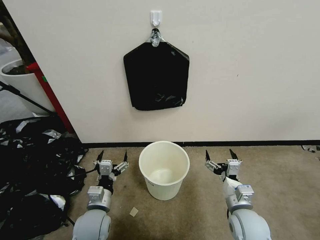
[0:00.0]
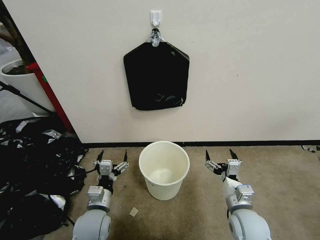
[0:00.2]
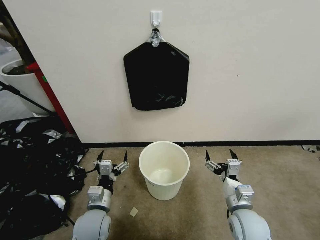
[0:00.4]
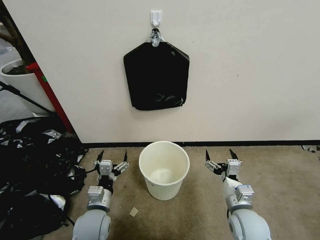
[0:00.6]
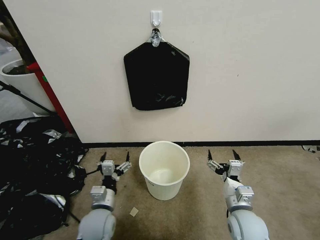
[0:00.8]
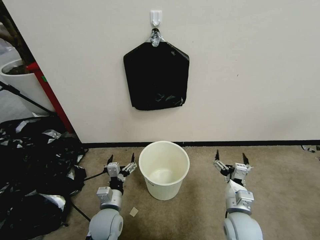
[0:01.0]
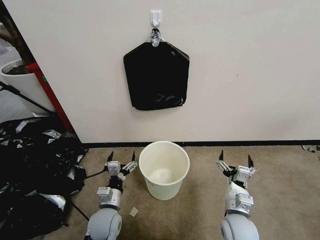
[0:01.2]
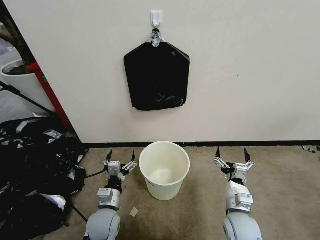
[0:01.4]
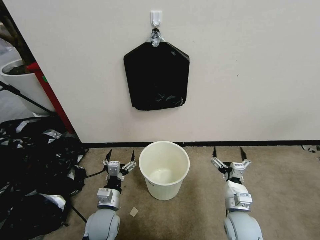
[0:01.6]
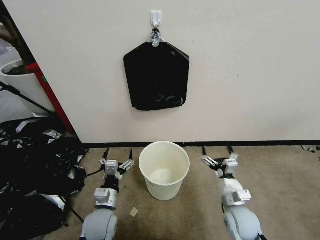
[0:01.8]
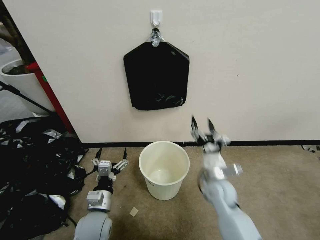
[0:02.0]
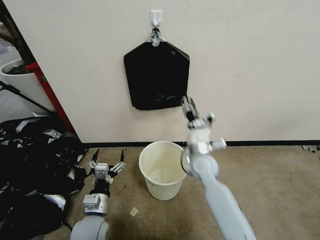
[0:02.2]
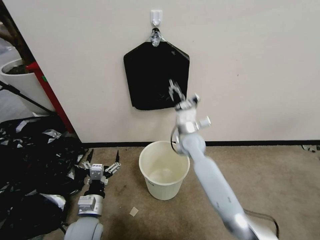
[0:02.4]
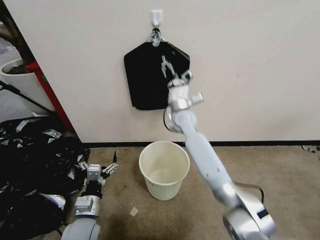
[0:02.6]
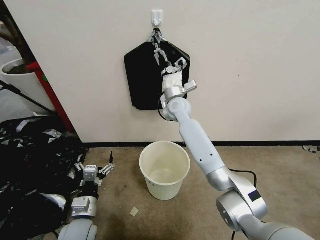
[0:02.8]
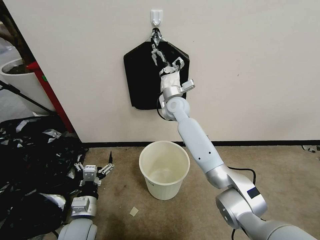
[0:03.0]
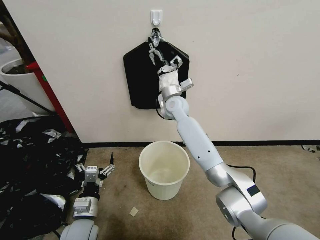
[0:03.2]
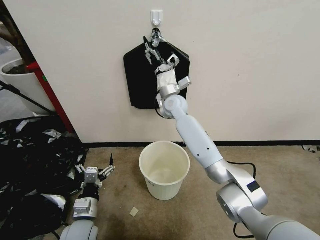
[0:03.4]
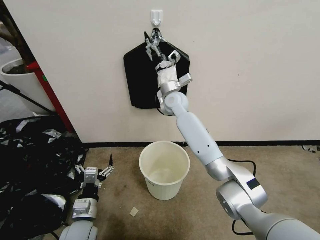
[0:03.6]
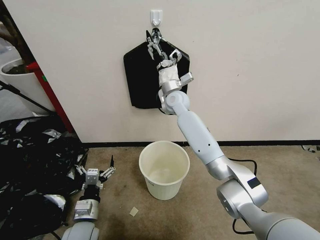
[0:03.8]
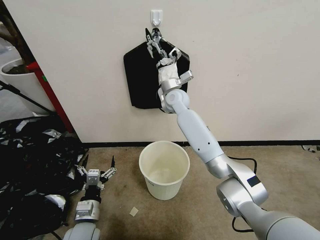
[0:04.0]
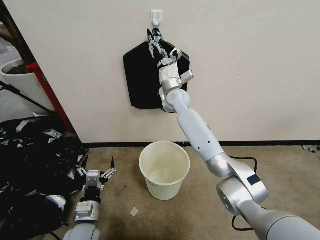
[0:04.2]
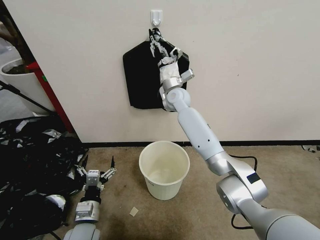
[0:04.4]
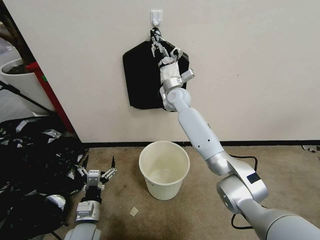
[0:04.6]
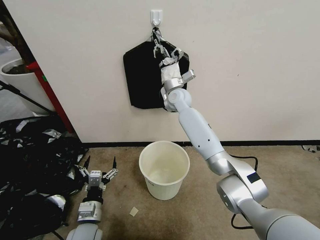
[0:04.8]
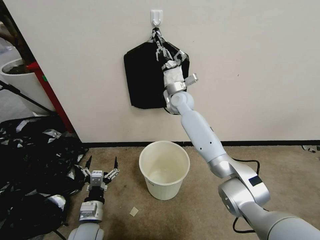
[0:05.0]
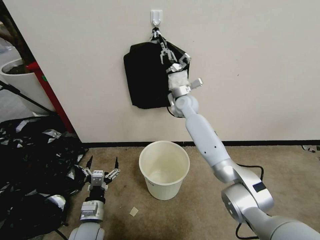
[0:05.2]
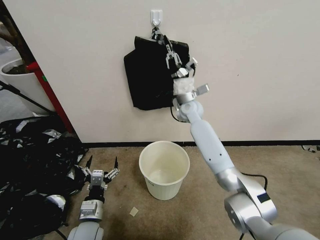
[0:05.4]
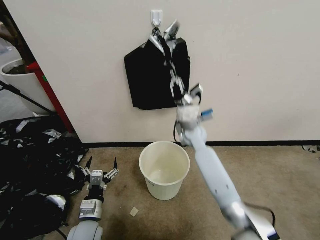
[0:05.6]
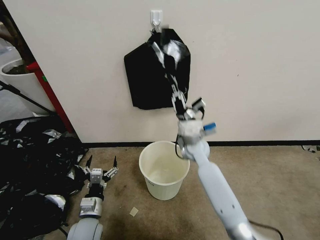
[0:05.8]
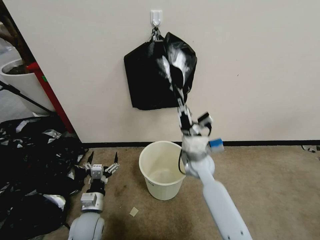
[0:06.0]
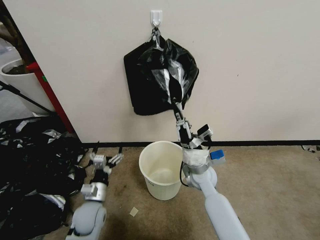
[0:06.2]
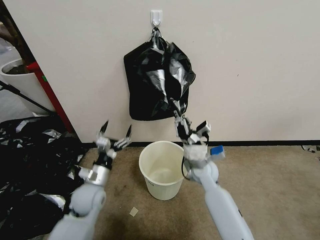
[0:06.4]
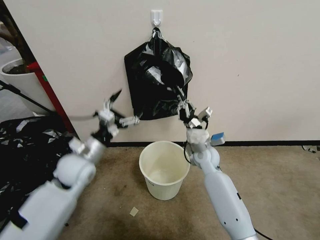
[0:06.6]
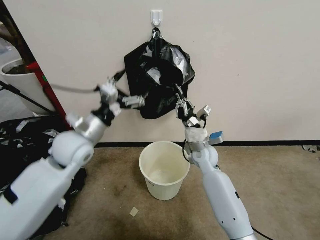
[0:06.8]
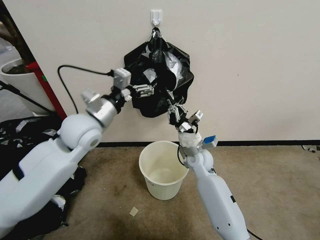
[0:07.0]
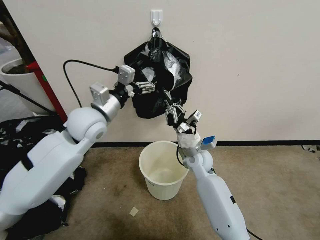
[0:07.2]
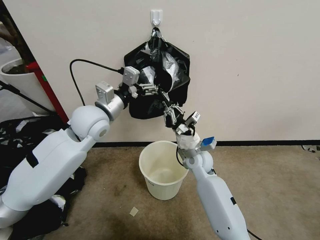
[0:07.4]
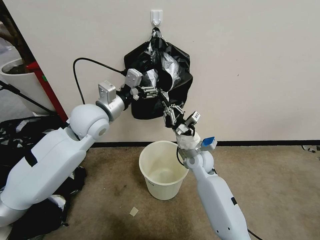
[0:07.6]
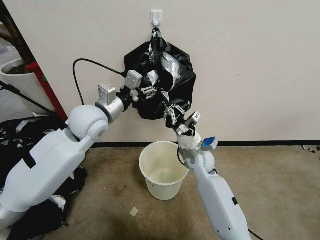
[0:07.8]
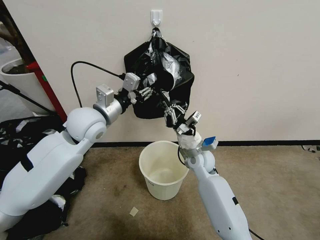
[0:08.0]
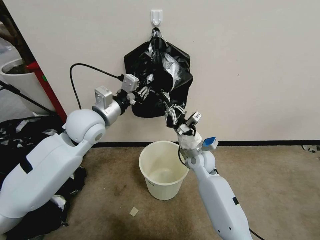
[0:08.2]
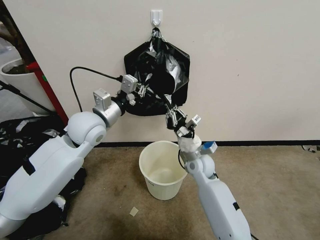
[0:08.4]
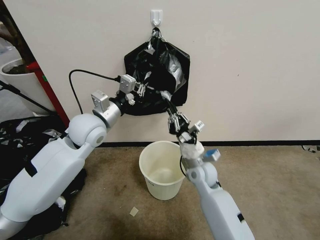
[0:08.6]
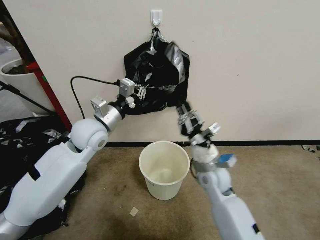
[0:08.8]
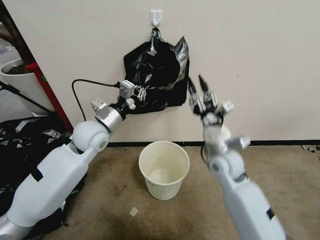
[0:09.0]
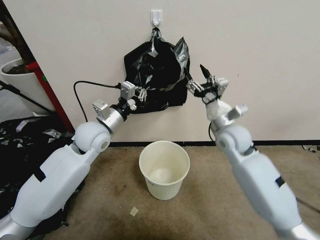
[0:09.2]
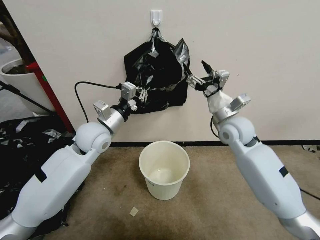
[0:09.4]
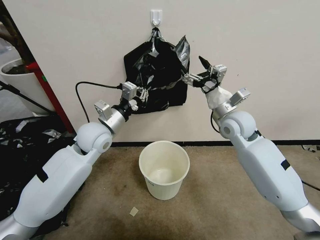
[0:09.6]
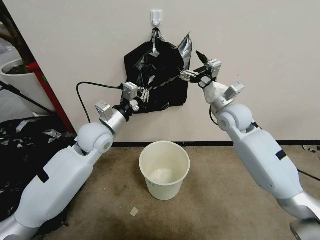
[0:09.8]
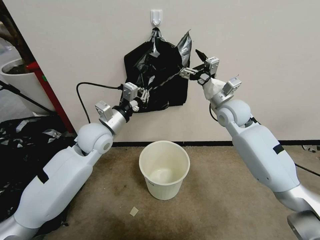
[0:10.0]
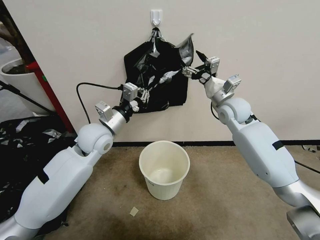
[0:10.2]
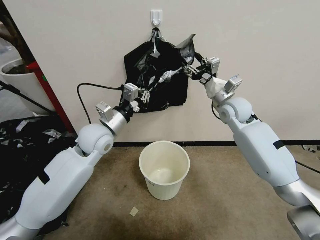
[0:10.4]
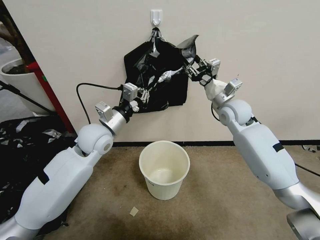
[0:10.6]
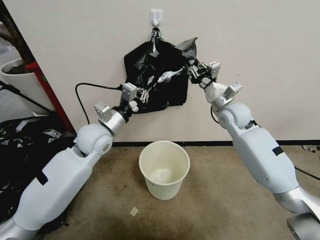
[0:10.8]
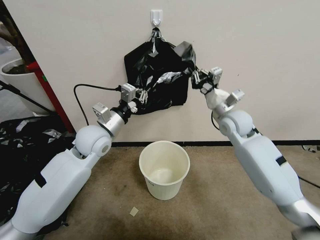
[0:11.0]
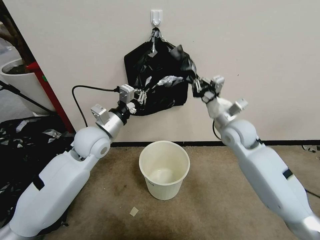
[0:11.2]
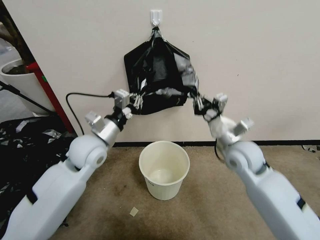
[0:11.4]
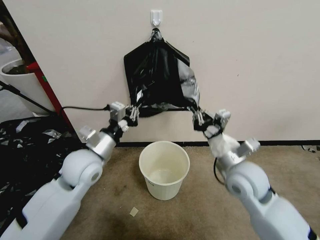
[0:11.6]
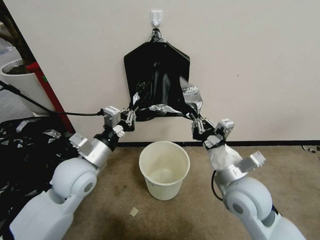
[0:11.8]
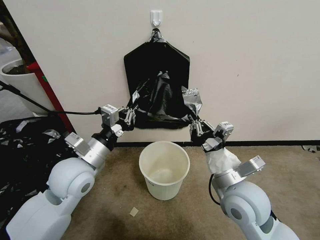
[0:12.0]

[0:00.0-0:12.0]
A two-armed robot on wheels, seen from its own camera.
Task of the whole recording: Place a trash bag onto the trash bin.
1.6 to 3.0 s: The left gripper shifts about 5 cm to the left. Meanwhile the right gripper is displaced forward, upward and to the left by roughly 40 cm.
3.0 to 4.4 s: The right gripper closes.
4.4 to 6.0 s: The right gripper moves backward and downward, about 25 cm, and closes.
6.0 to 7.6 s: The left gripper travels upward and forward by approximately 35 cm.
7.6 to 9.0 s: The left gripper heads downward, covering approximately 5 cm, and closes. Meanwhile the right gripper heads upward and to the right, covering some 10 cm, and opens up.
9.0 to 10.4 s: The right gripper moves forward and upward, roughly 15 cm.
10.4 to 12.0 s: The left gripper heads backward, covering about 10 cm. The right gripper heads backward, covering approximately 30 cm, and closes its fingers.

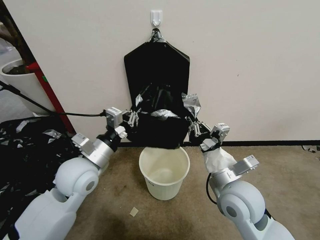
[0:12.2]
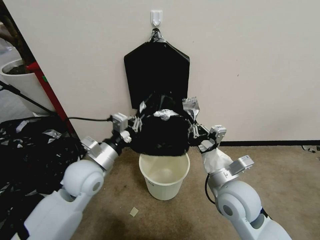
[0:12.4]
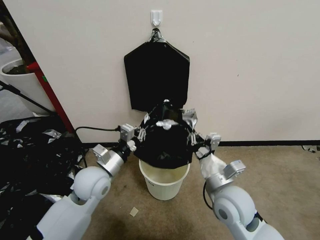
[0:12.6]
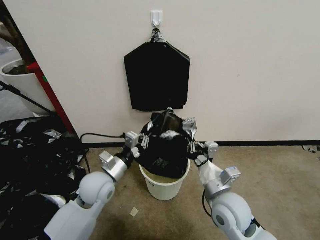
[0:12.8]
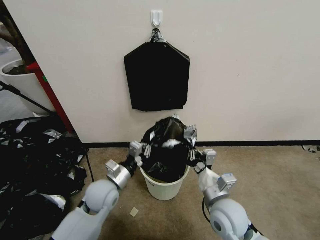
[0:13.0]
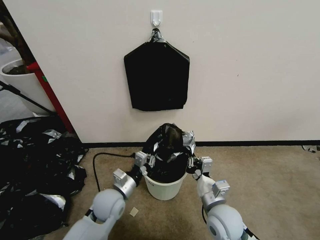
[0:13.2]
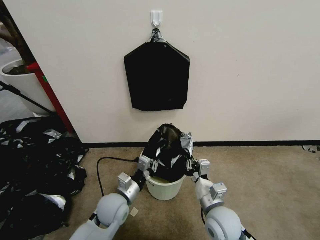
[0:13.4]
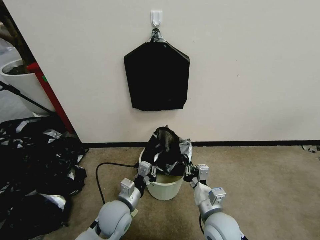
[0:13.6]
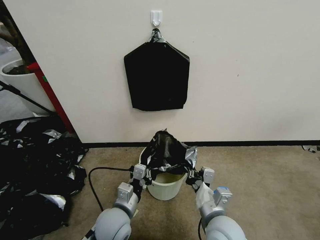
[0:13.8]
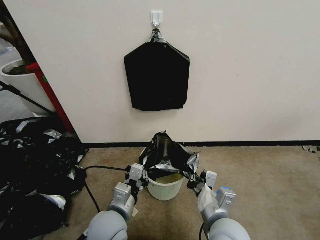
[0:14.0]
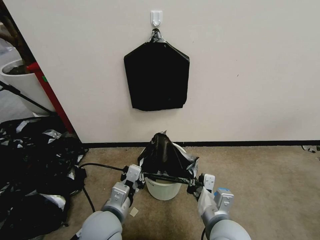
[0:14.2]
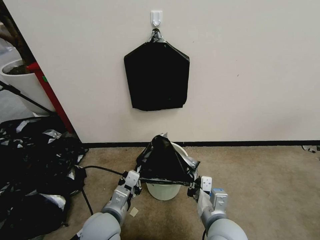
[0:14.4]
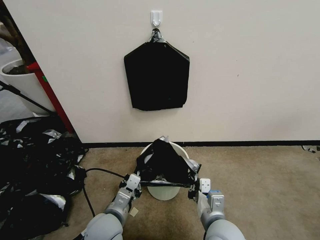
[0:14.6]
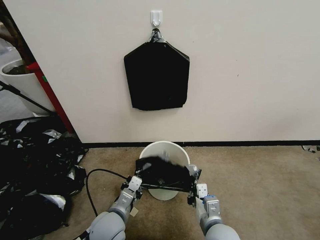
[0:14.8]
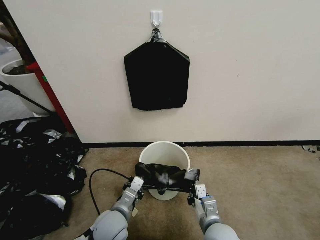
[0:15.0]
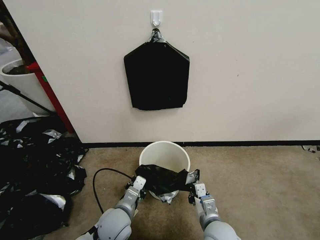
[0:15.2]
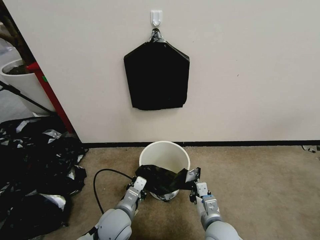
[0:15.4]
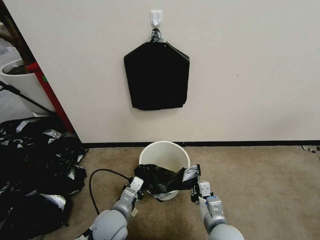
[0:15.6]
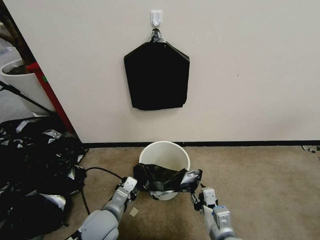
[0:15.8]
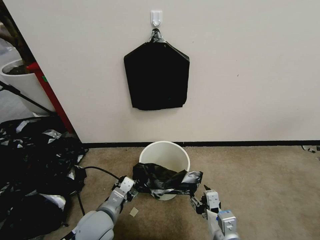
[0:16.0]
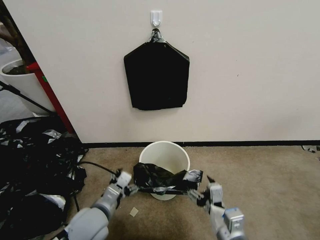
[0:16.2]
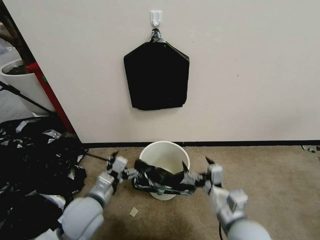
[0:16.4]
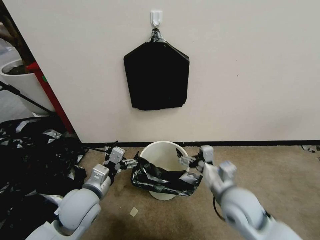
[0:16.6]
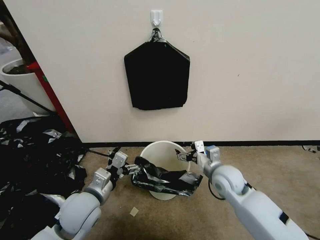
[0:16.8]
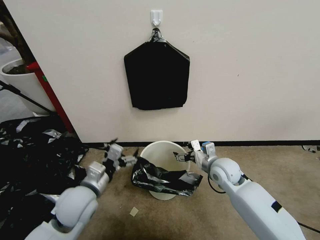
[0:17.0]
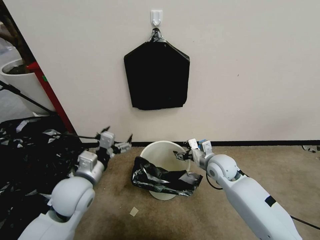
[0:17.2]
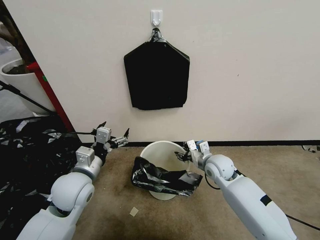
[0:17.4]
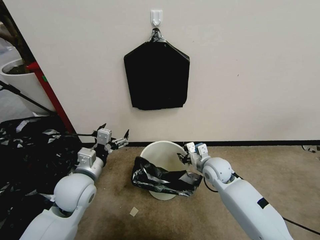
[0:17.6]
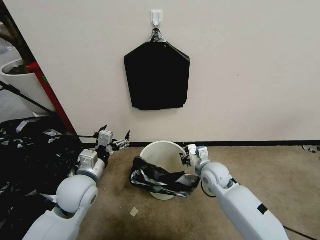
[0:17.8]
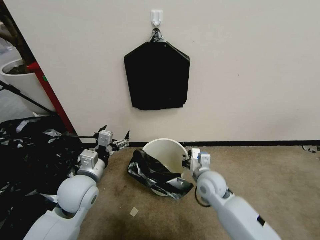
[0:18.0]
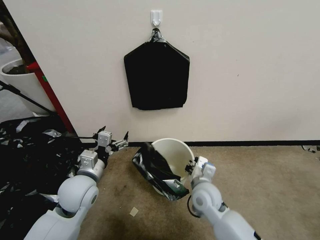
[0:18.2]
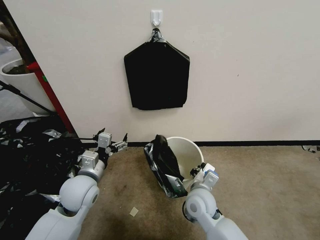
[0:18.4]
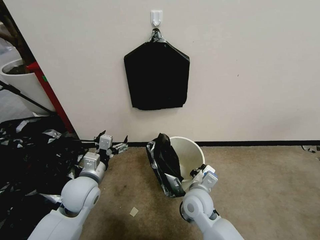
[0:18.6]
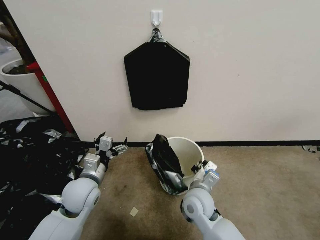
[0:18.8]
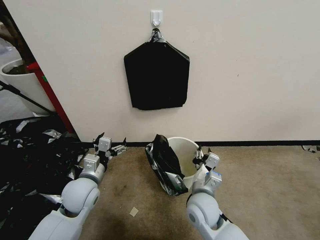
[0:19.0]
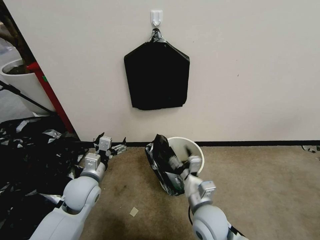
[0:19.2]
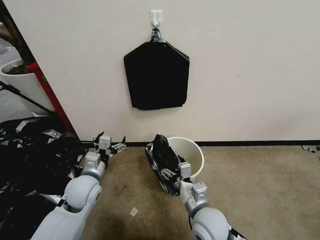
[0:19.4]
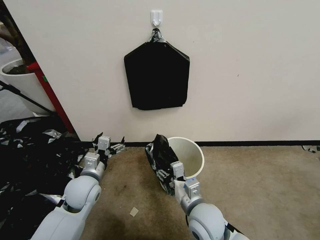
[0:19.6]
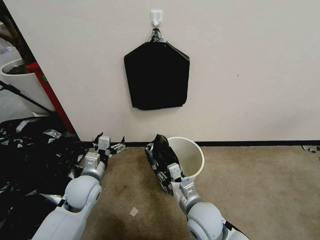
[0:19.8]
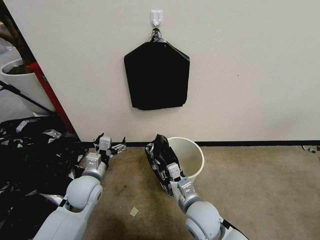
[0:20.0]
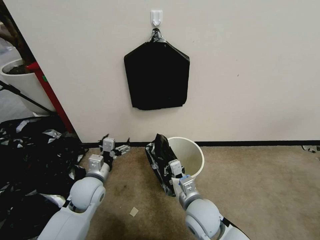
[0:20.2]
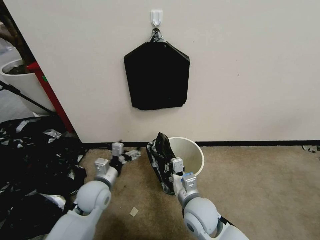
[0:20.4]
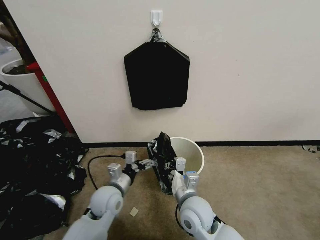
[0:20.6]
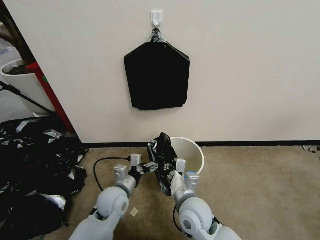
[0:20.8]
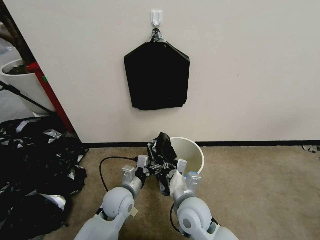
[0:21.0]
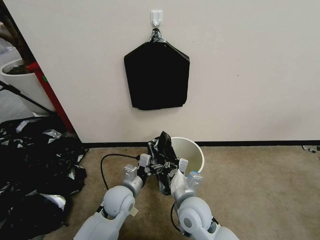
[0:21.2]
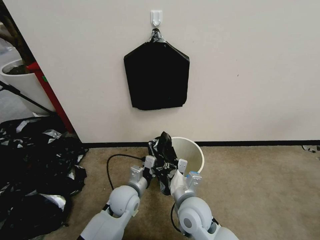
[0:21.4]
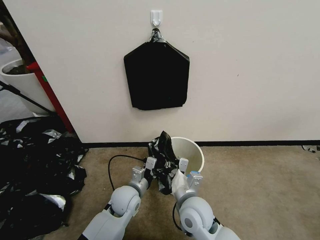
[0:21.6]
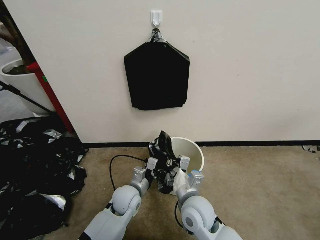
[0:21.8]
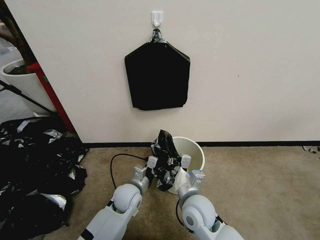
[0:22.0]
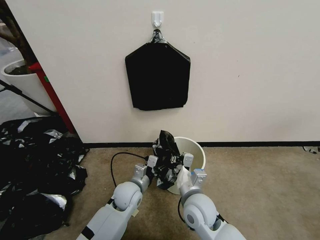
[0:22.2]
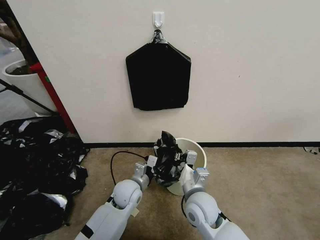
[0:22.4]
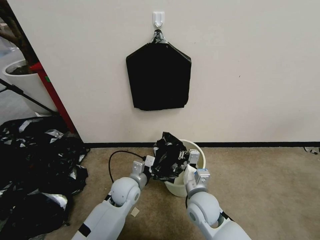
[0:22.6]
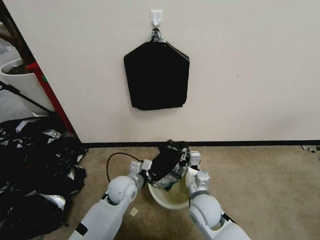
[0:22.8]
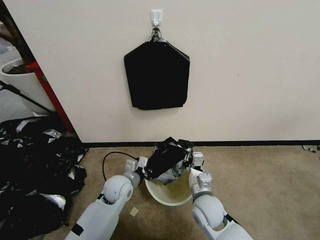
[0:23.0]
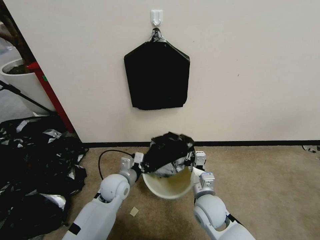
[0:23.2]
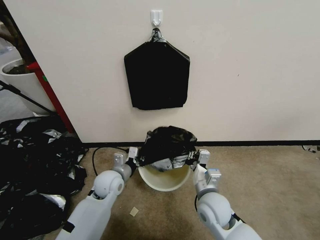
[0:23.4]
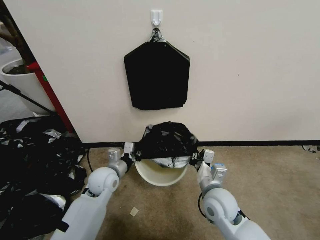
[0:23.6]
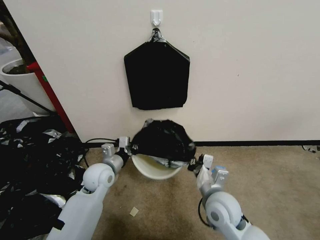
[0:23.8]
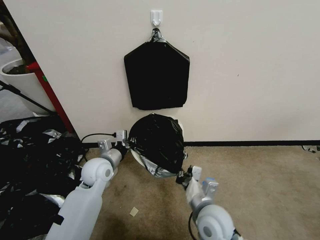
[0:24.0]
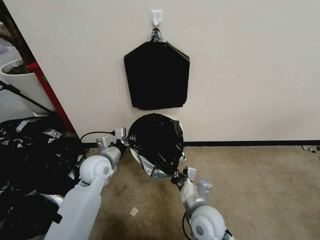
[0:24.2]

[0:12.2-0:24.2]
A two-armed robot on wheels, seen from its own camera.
Task of the whole recording: Place a trash bag onto the trash bin.
12.2 to 13.8 s: The right gripper moves downward and backward, approximately 10 cm; the left gripper heads downward, backward and to the right, covering about 20 cm.
13.8 to 15.2 s: The right gripper goes approximately 5 cm downward. The left gripper reaches about 5 cm upward, then returns.
15.2 to 16.6 s: The right gripper goes approximately 15 cm upward and forward, and opens, while the left gripper moves upward and to the left, about 10 cm, and opens its fingers.
16.6 to 18.2 s: The right gripper is displaced downward, to the left and forward by about 10 cm, and closes its fingers.
18.2 to 19.8 s: The right gripper heads backward, covering roughly 5 cm, and opens.
19.8 to 21.2 s: The left gripper shifts approximately 10 cm to the right and downward; the right gripper closes up.
21.2 to 22.6 s: The right gripper shifts by approximately 5 cm. Meanwhile the left gripper closes up.
22.6 to 24.2 s: The left gripper moves to the left and upward, some 10 cm.
